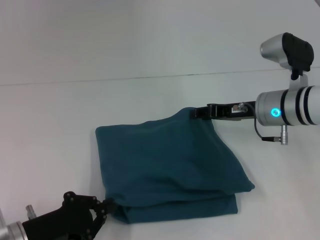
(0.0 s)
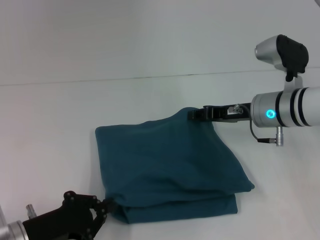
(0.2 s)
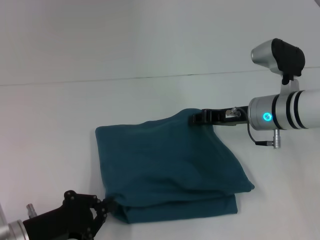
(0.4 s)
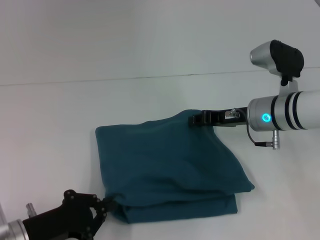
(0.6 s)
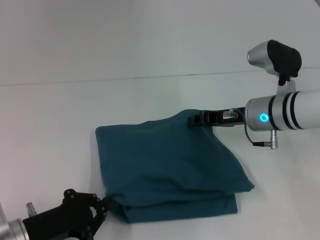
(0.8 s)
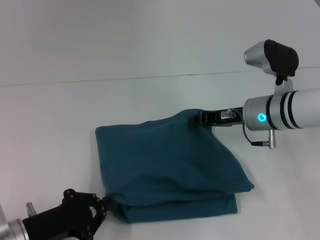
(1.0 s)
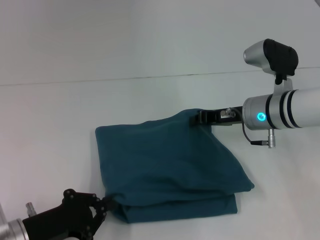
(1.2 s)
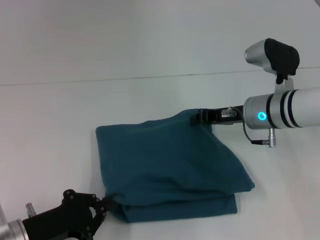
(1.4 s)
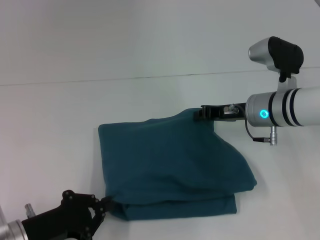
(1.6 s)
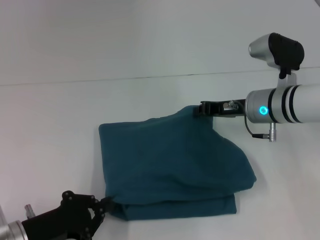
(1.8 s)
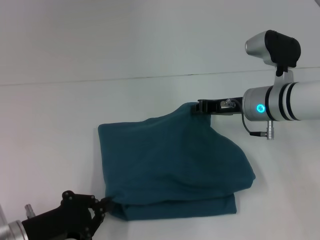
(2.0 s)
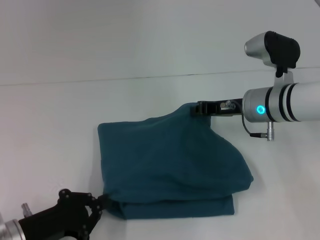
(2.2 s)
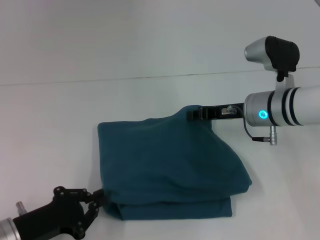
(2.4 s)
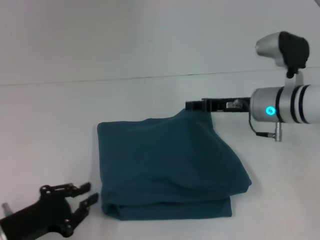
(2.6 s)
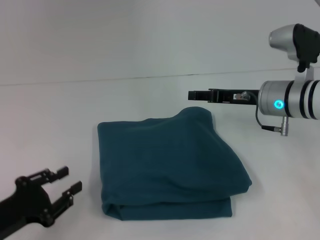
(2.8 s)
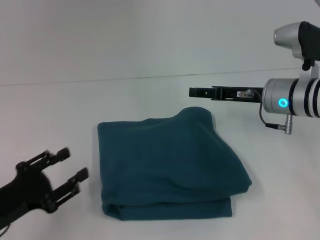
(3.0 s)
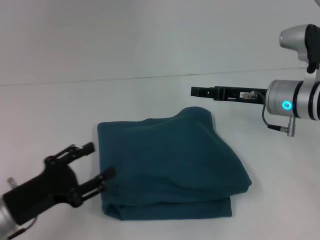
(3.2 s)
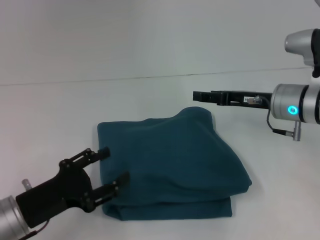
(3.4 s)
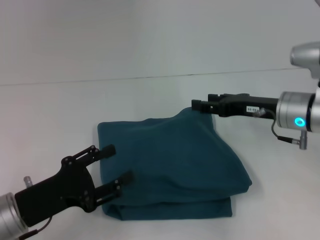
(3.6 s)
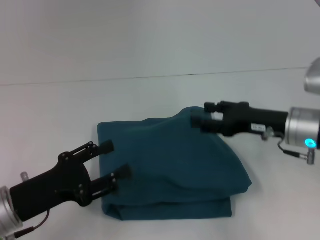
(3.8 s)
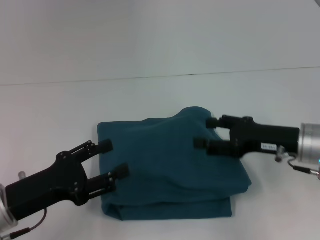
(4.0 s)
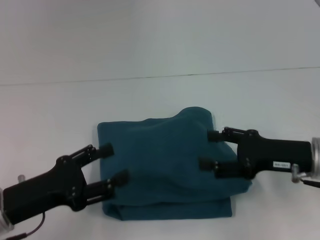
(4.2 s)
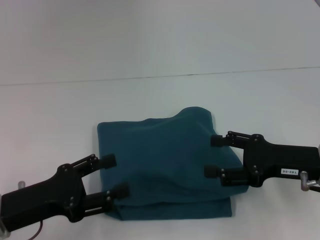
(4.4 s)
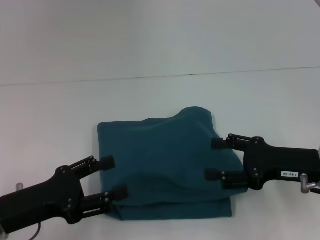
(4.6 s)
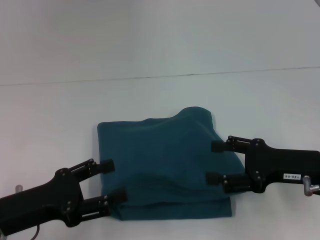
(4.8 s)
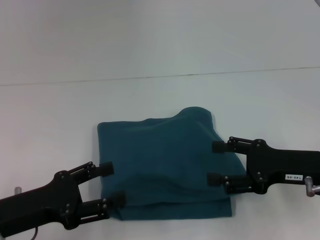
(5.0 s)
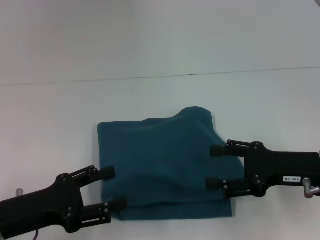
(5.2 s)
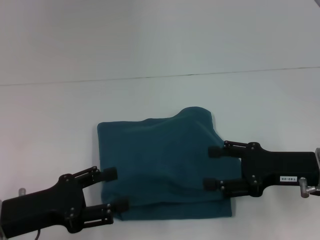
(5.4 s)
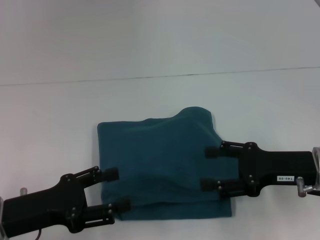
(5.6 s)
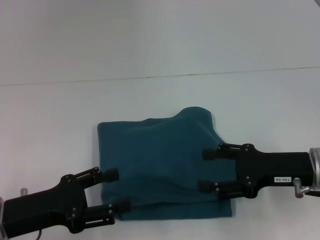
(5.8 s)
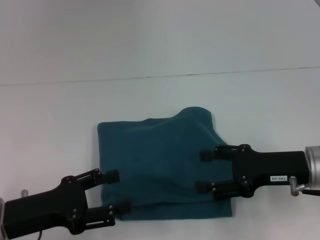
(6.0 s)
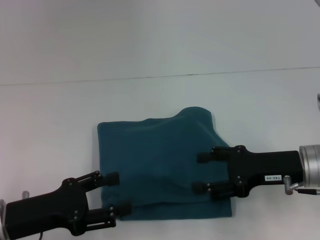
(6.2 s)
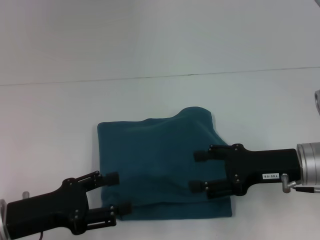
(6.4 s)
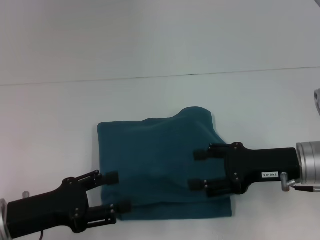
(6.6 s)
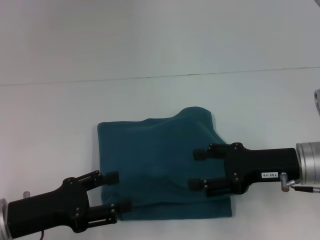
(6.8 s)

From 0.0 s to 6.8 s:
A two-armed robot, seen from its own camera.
From 0.0 s to 1.4 s: The right gripper closes its fingers.
From 1.4 s to 2.8 s: The right gripper opens.
From 2.8 s to 4.0 s: The right gripper goes approximately 10 cm backward; the left gripper changes place by some 5 cm, and opens.
From 4.0 s to 6.8 s: There are only small adjustments of the grippers.

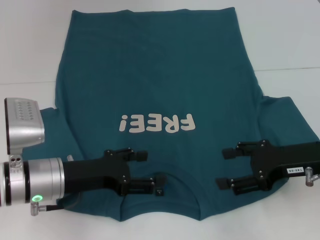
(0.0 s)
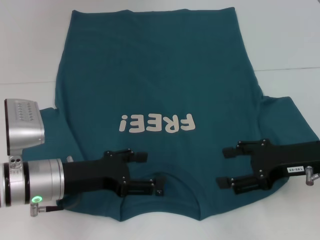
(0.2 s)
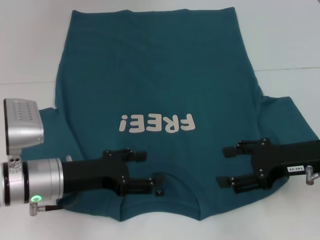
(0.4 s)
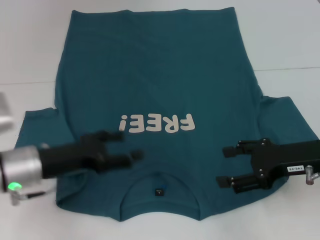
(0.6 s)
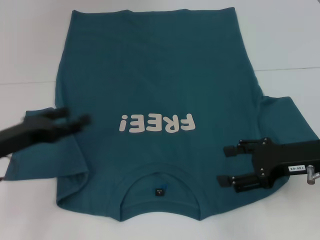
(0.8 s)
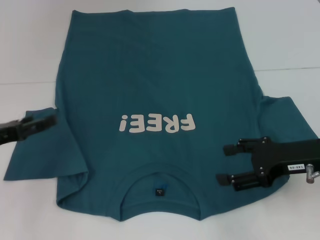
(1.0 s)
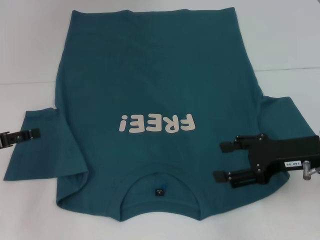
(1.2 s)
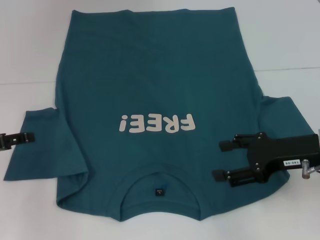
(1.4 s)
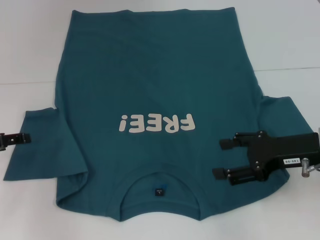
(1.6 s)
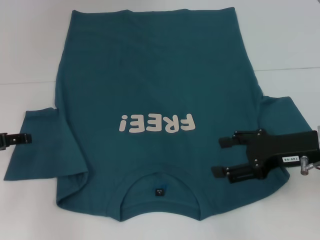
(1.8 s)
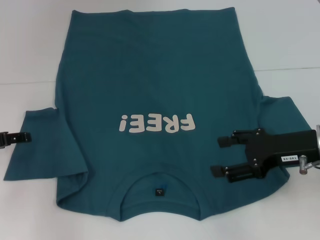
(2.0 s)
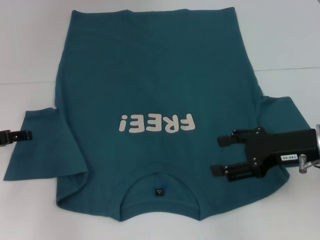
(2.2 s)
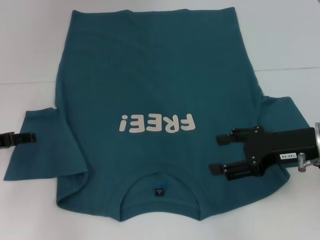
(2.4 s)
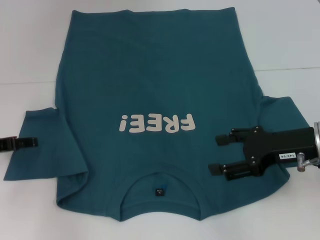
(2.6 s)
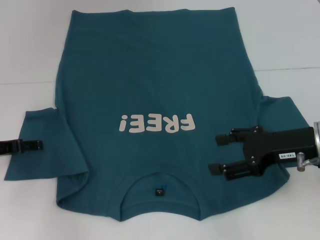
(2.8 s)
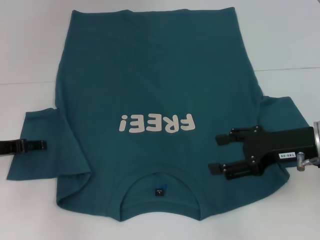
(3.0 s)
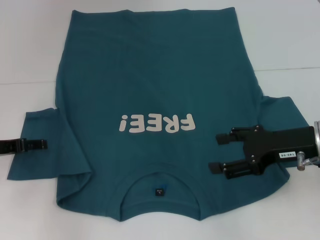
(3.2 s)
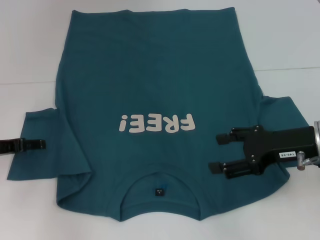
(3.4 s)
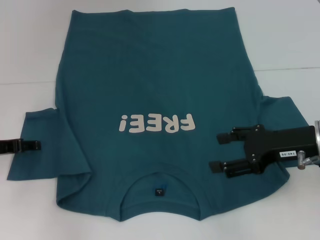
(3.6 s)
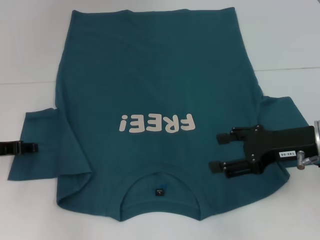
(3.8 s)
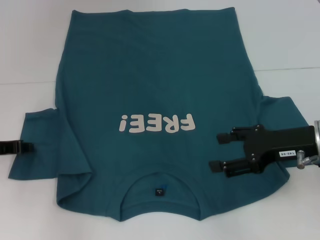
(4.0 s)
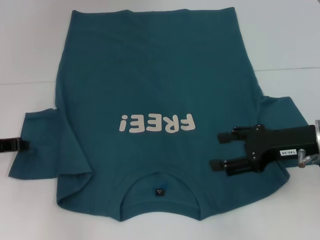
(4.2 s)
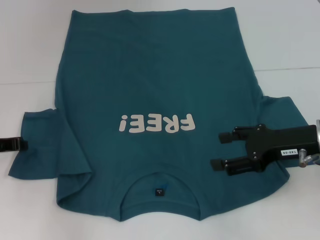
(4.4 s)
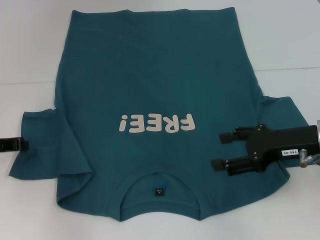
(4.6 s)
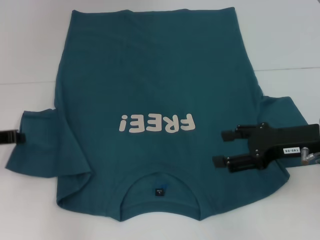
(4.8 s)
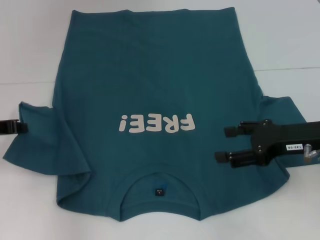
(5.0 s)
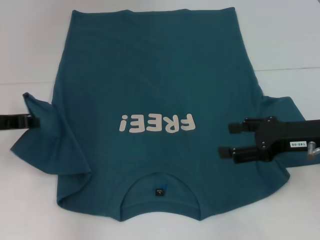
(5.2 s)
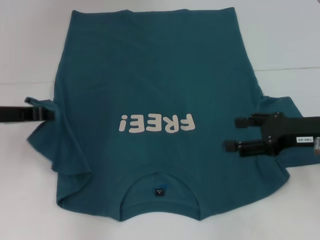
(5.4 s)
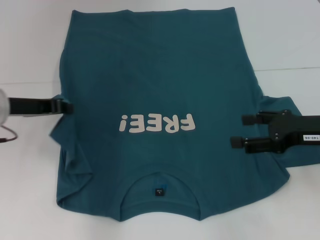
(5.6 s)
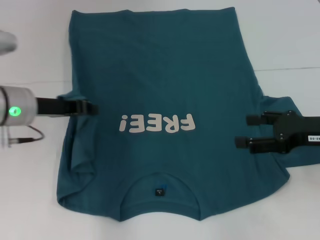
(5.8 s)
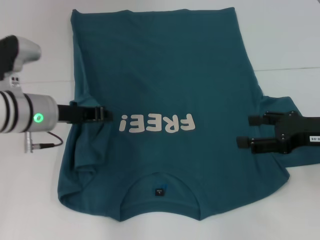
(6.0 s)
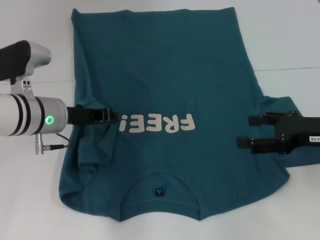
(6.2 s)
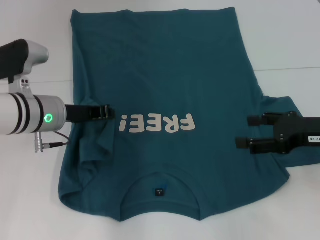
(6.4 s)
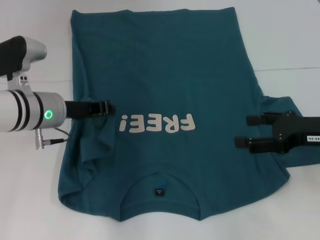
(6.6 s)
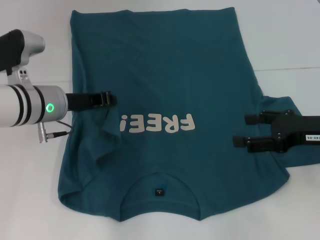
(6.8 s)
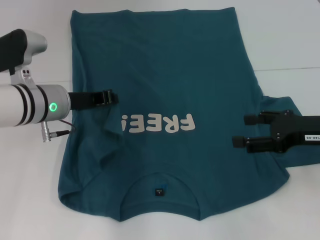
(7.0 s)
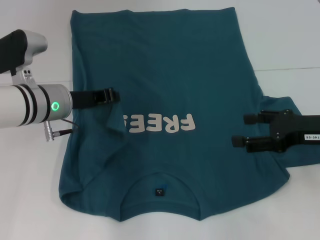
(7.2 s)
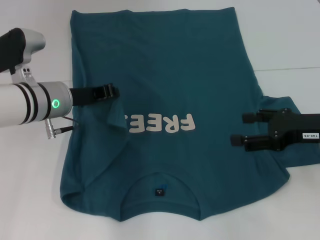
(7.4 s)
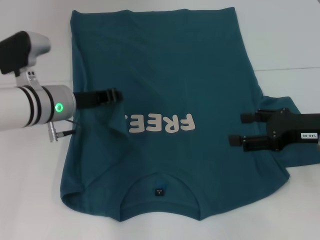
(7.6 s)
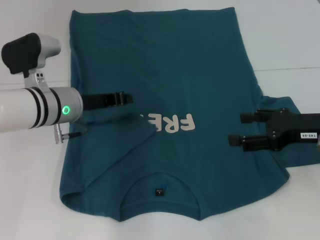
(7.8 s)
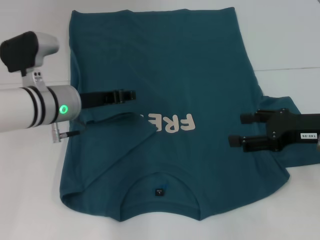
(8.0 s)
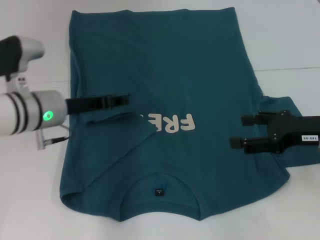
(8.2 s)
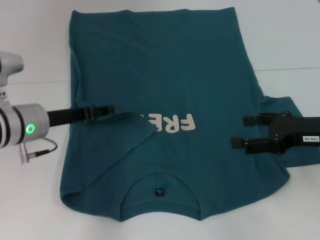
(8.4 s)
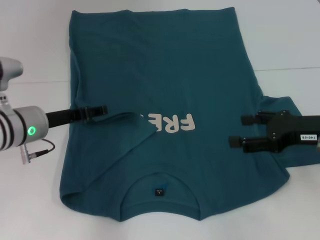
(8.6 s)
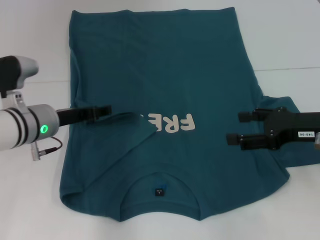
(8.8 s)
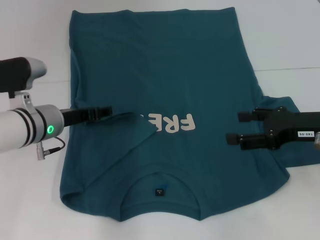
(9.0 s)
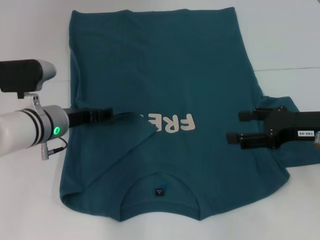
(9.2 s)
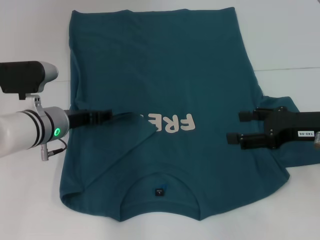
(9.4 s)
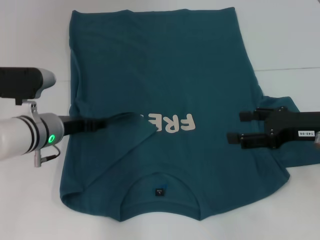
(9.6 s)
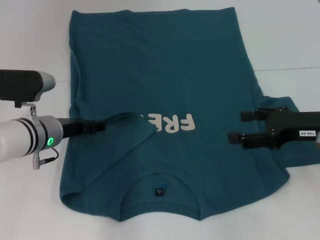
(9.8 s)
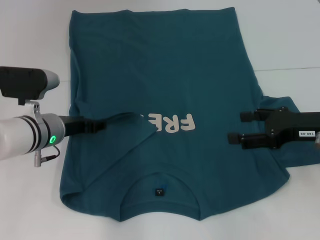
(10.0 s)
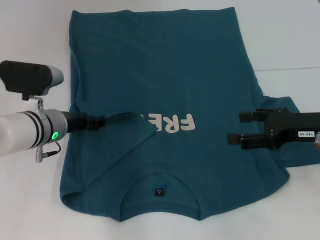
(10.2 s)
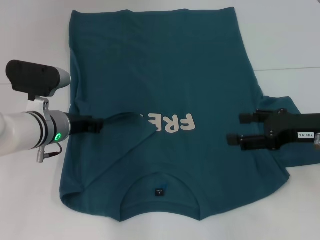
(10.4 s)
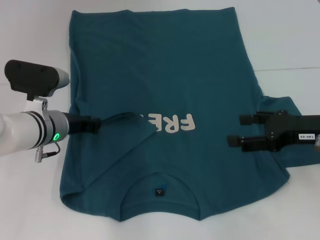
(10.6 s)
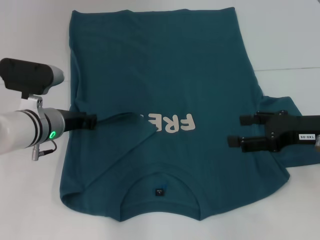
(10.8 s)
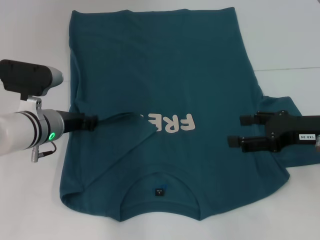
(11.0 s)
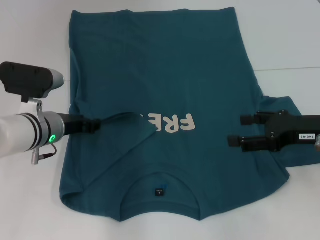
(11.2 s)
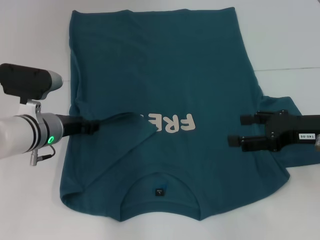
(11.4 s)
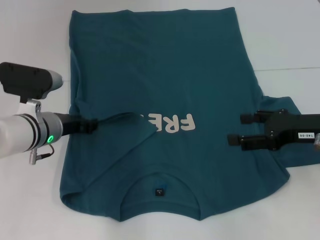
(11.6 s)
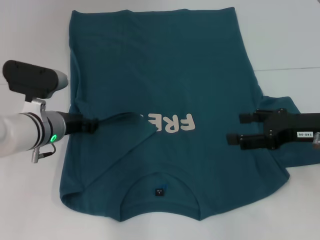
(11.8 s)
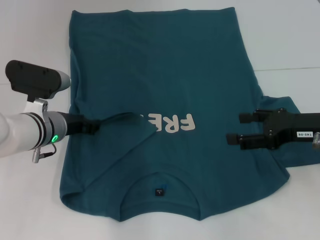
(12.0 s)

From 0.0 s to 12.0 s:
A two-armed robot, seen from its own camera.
From 0.0 s to 1.6 s: The left gripper shifts roughly 15 cm to the left.
From 1.6 s to 3.0 s: The grippers stay close to where they were, moving slightly.
From 3.0 s to 4.4 s: The left gripper closes.
From 4.4 s to 6.0 s: The left gripper heads to the right, covering about 15 cm.
From 6.0 s to 7.6 s: The grippers move only a little.
From 7.6 s to 9.0 s: The left gripper opens up.
From 9.0 s to 10.4 s: The grippers move only a little.
From 10.4 s to 12.0 s: Both grippers stay put.

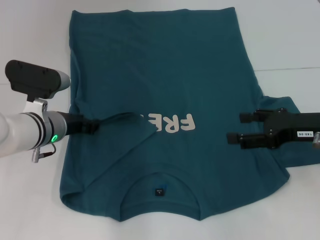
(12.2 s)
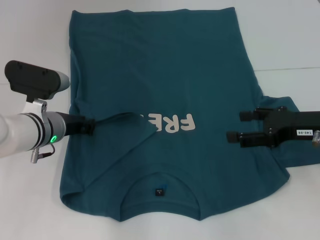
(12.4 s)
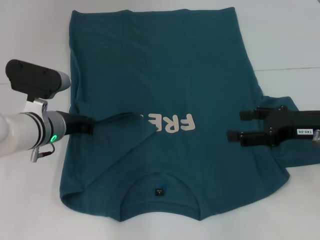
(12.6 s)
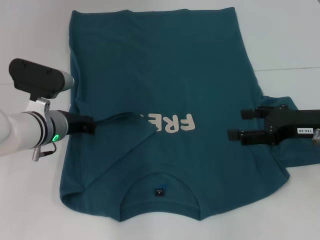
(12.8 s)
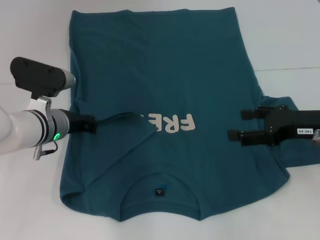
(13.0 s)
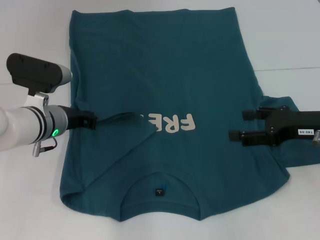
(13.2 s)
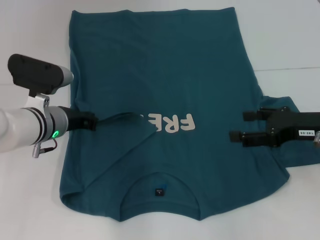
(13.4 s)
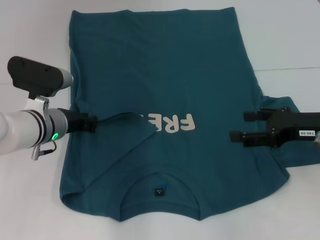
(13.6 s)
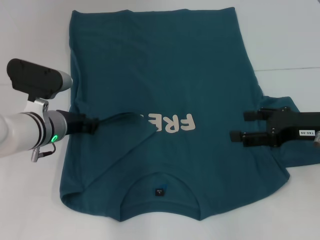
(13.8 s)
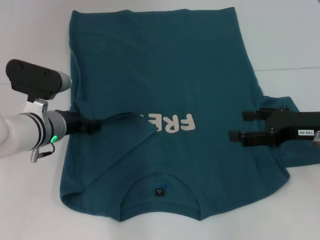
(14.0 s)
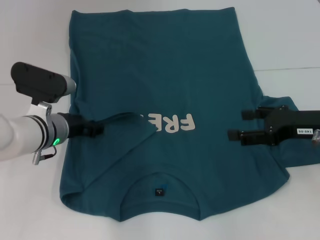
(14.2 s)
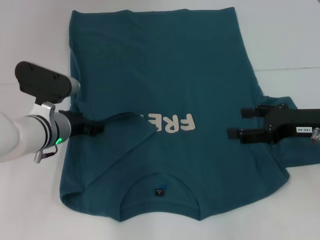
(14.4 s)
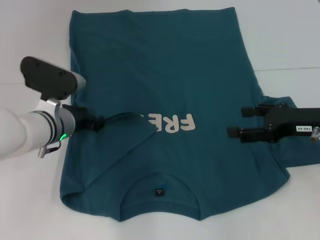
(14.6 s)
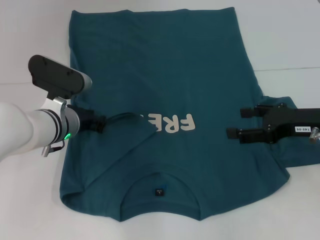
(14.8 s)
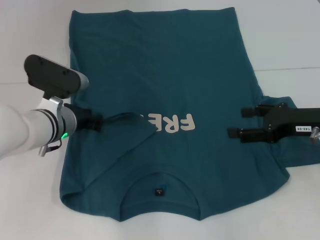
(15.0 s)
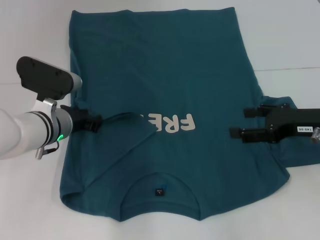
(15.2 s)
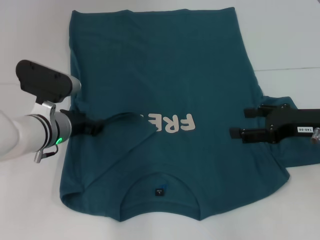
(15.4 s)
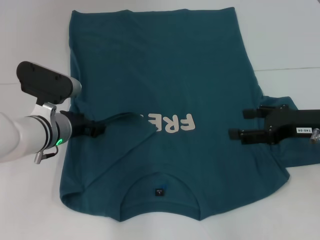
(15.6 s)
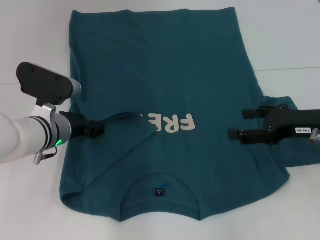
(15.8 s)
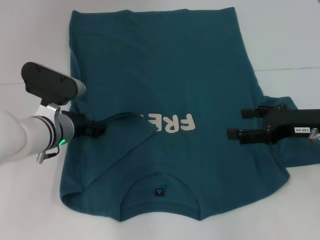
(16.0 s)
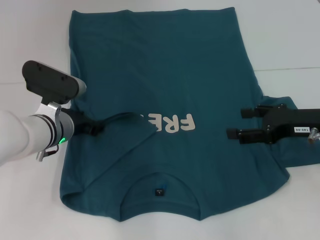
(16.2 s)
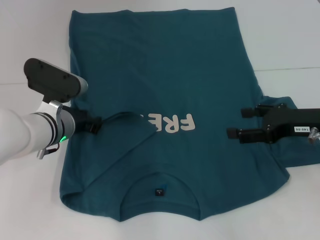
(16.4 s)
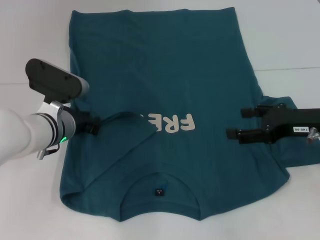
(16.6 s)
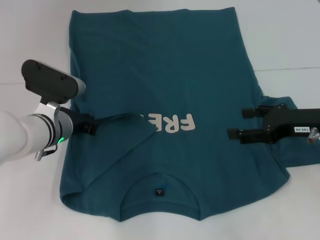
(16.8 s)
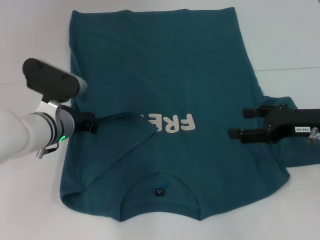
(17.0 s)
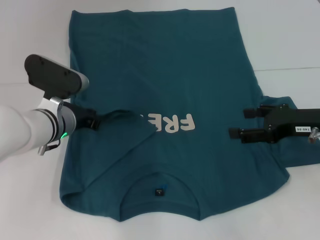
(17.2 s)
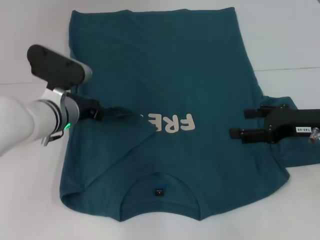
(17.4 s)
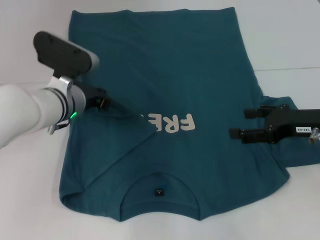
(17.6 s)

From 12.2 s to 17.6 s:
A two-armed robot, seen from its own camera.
From 12.2 s to 13.6 s: The left gripper closes up.
From 13.6 s to 15.0 s: The left gripper opens up.
From 15.0 s to 16.2 s: The grippers make only small movements.
From 16.2 s to 17.6 s: The left gripper closes.
